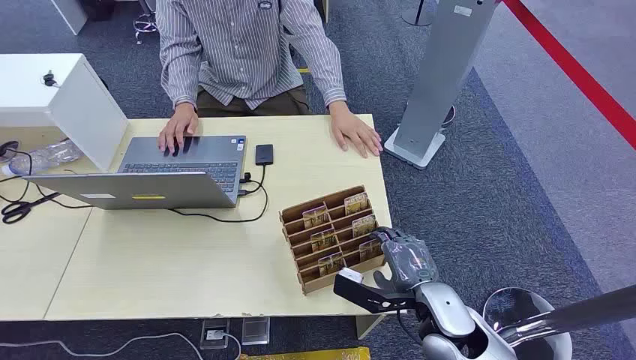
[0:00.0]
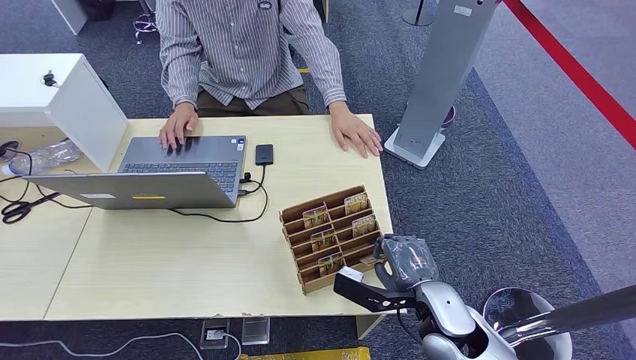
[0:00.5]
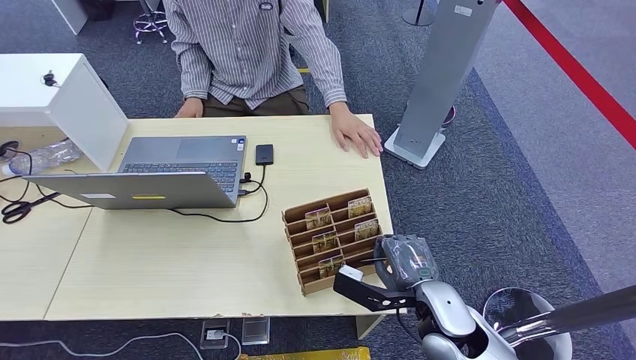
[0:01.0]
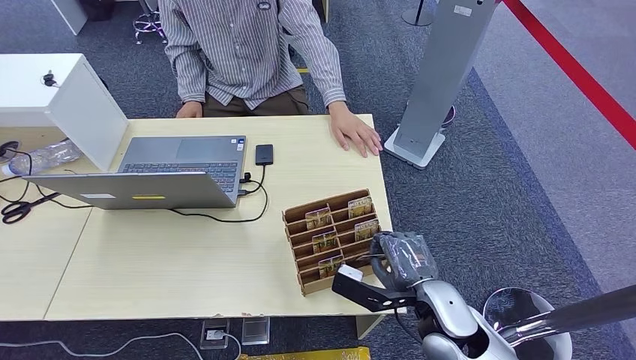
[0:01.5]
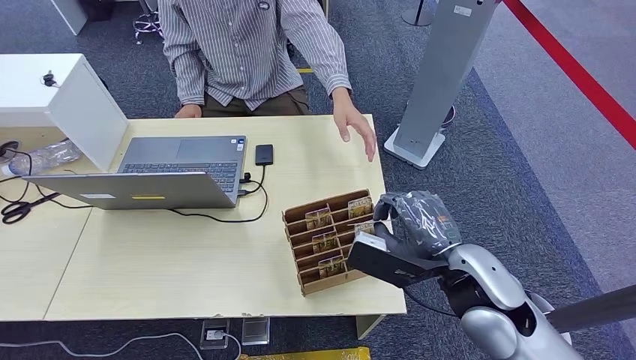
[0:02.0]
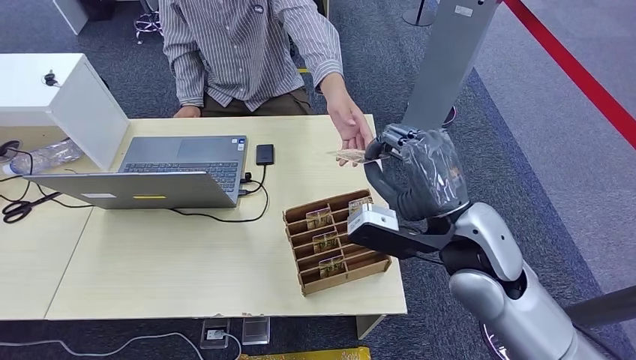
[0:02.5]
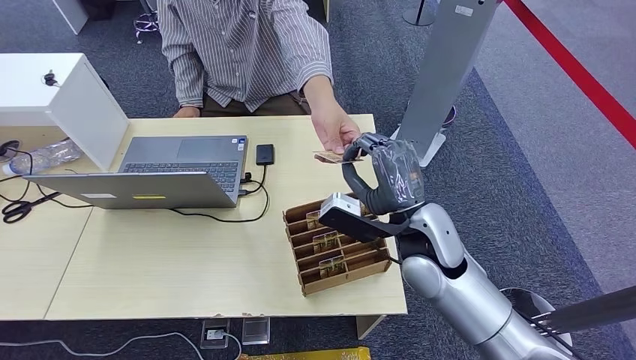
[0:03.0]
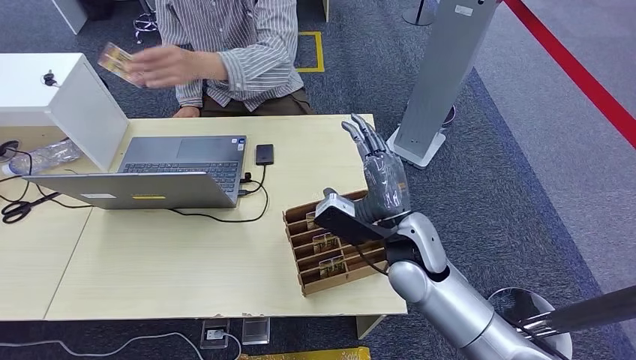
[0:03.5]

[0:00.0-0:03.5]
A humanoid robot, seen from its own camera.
Step, 0:00.0 to 0:01.5: Pick up the room card from the card holder.
Step, 0:03.0 to 0:03.5: Hand the room card to the target.
0:02.0 to 0:03.5: The right hand travels downward and to the left by approximately 10 cm.
